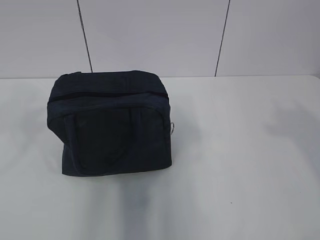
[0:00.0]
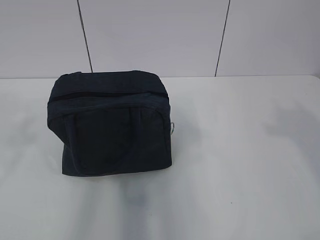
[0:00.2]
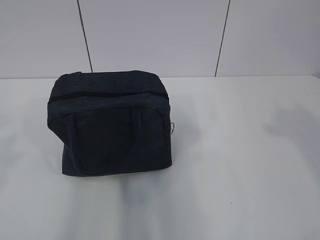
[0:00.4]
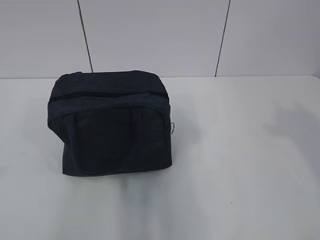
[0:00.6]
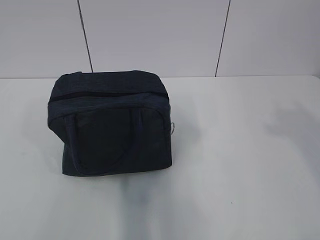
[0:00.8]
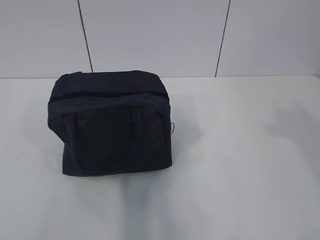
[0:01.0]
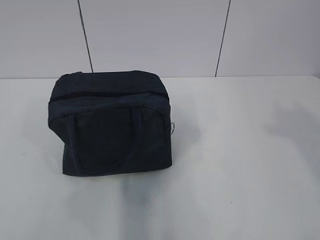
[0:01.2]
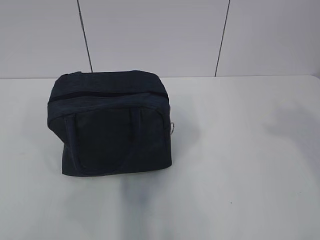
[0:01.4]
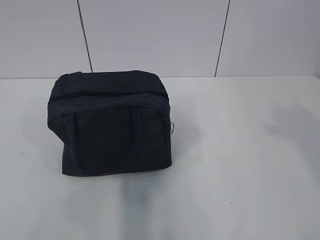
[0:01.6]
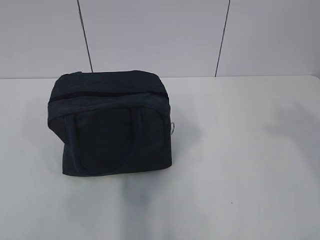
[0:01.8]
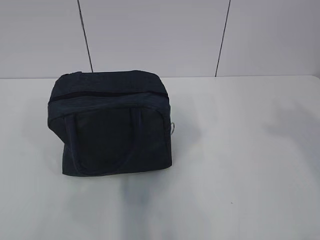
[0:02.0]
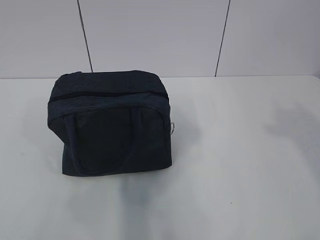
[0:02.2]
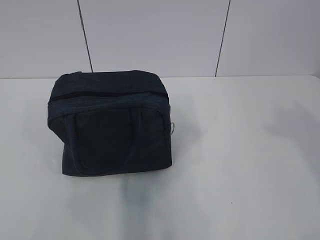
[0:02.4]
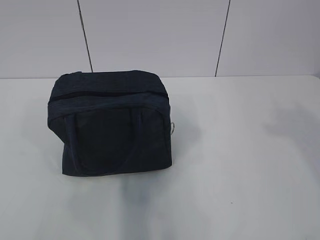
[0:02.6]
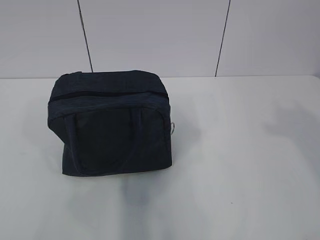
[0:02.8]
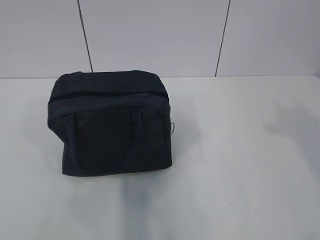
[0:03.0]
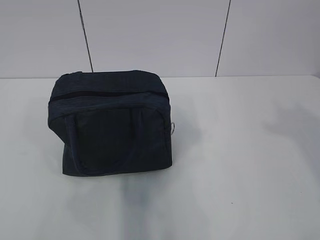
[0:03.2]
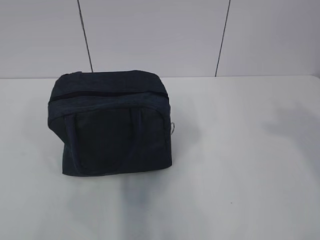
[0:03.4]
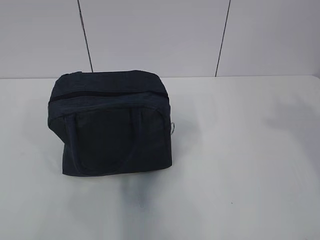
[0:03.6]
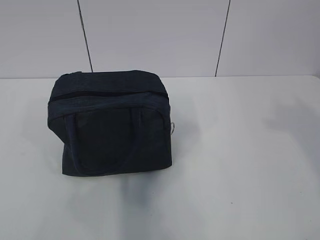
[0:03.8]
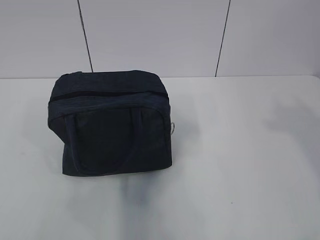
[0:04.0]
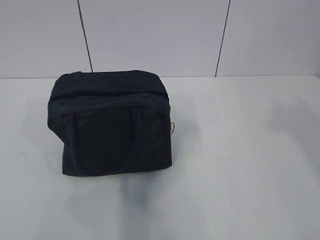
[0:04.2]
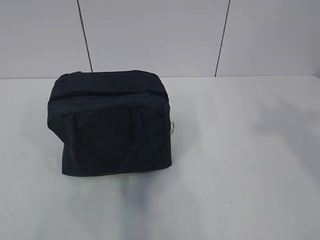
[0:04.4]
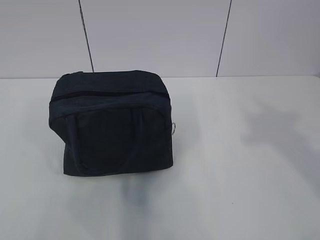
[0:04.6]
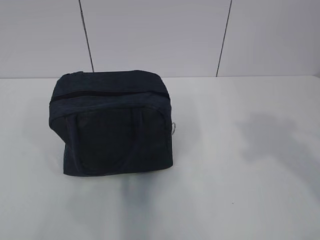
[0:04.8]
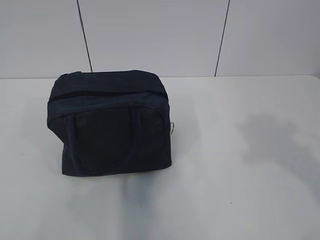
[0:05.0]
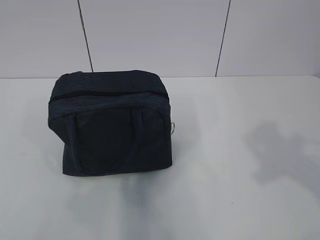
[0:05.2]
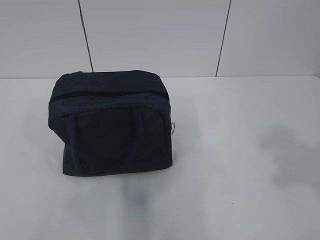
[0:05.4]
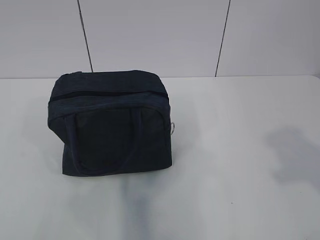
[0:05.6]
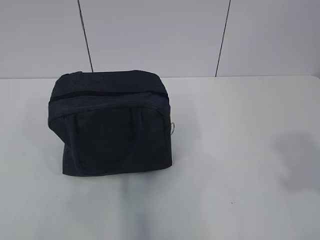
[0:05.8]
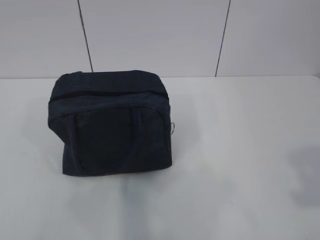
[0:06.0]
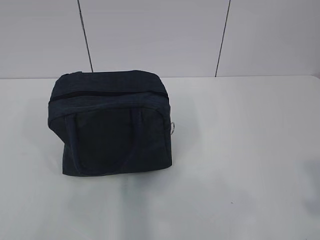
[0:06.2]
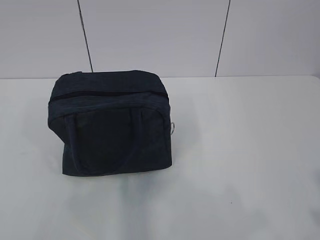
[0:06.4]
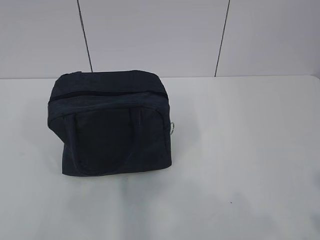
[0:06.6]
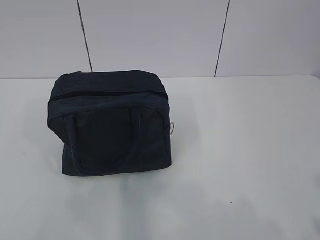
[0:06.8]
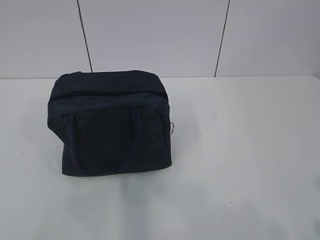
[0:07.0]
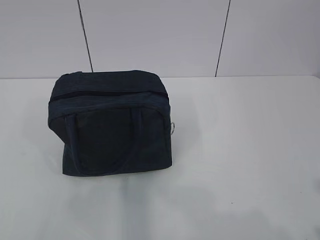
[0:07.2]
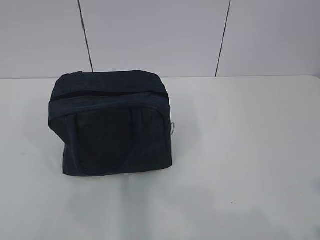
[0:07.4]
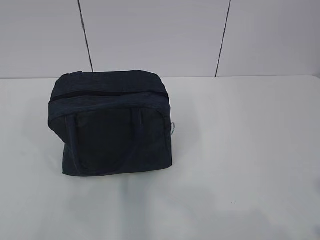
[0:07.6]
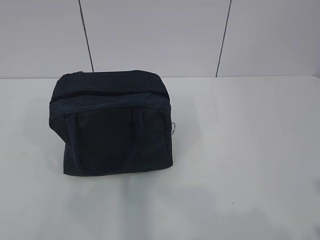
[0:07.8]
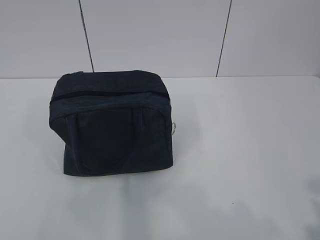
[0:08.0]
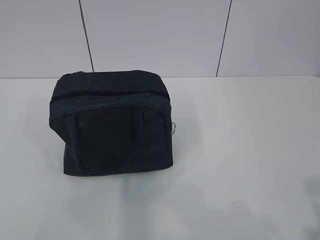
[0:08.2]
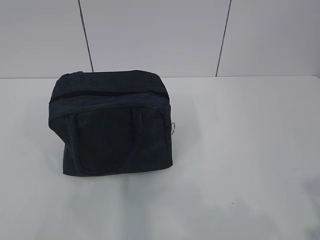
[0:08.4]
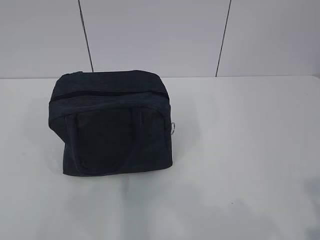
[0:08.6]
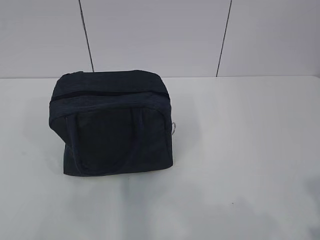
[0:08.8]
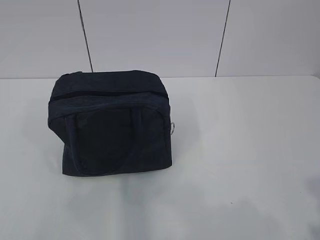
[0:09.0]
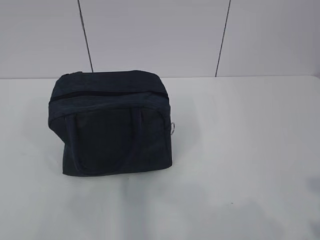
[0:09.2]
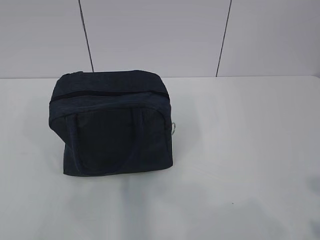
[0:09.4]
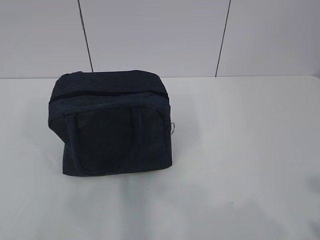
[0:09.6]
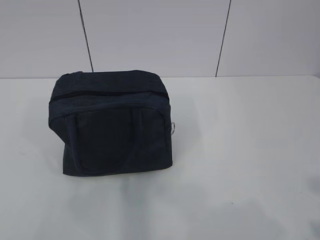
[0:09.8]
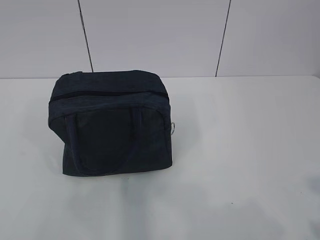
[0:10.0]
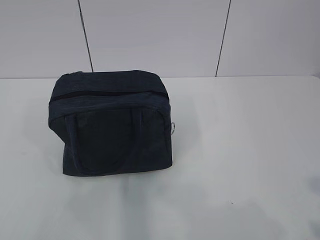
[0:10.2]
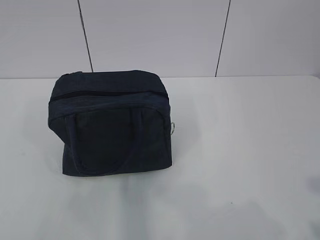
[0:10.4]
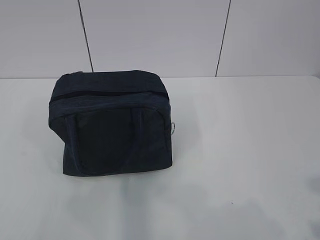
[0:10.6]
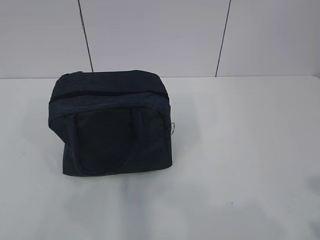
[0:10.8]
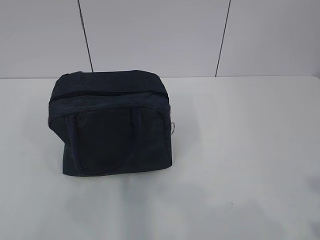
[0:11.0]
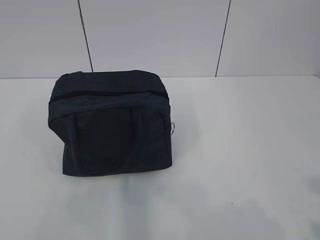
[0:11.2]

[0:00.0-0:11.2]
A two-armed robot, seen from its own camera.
0:04.8 to 0:06.4: The right gripper shifts some 15 cm backward and to the right.
0:06.4 to 0:09.6: The grippers stay close to where they were, moving slightly.
0:09.6 to 0:11.2: Both grippers stay about where they are.
